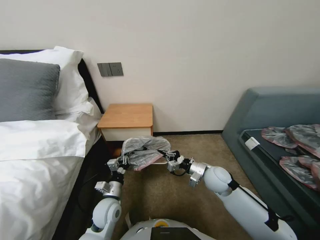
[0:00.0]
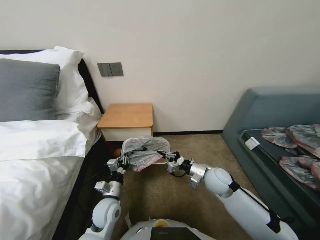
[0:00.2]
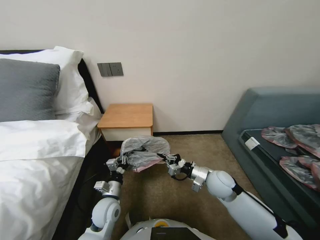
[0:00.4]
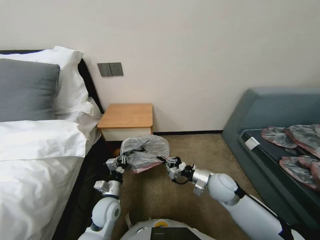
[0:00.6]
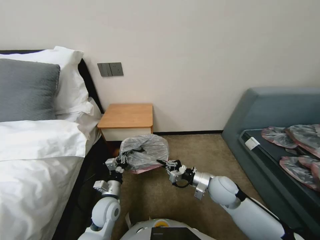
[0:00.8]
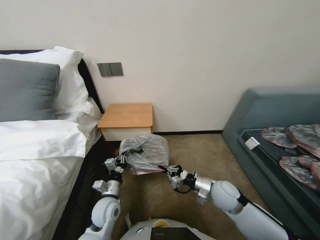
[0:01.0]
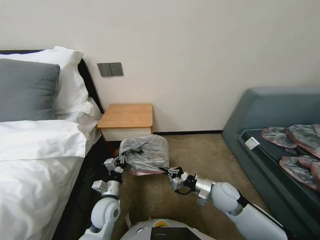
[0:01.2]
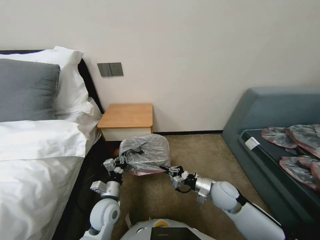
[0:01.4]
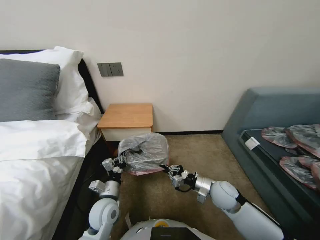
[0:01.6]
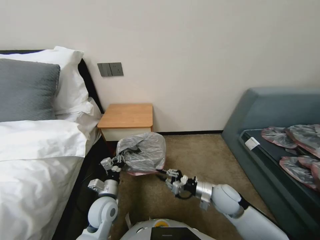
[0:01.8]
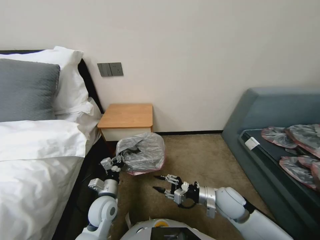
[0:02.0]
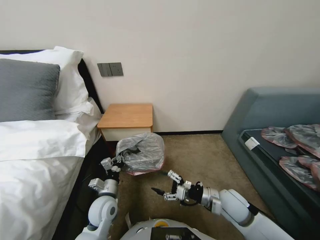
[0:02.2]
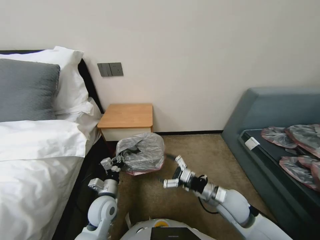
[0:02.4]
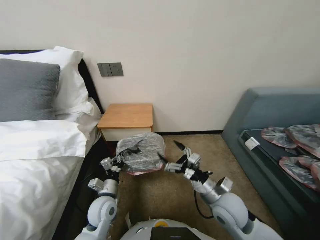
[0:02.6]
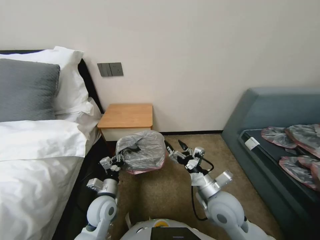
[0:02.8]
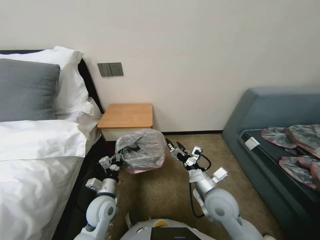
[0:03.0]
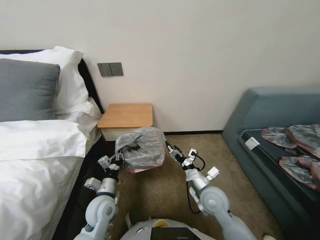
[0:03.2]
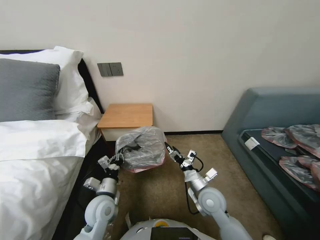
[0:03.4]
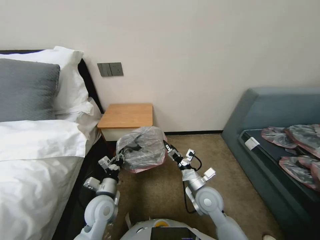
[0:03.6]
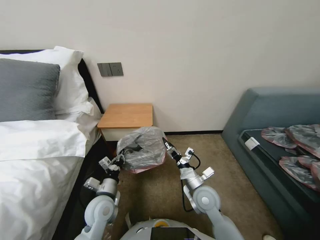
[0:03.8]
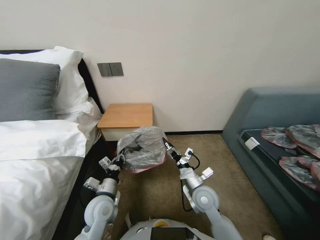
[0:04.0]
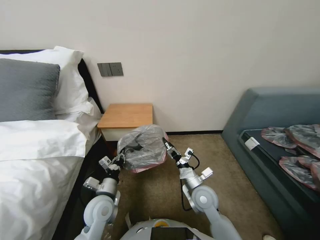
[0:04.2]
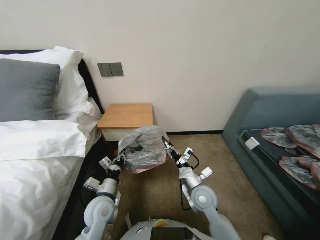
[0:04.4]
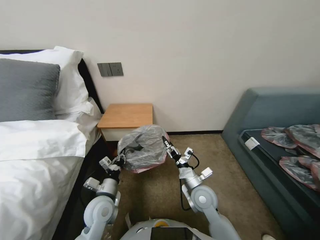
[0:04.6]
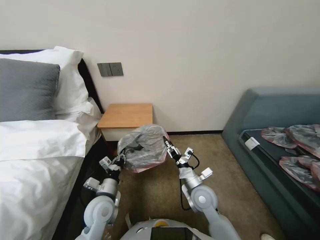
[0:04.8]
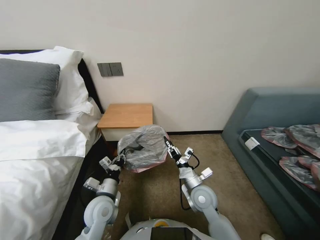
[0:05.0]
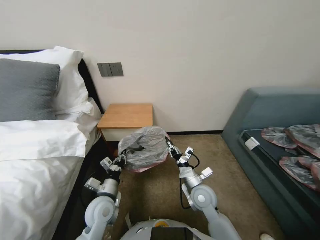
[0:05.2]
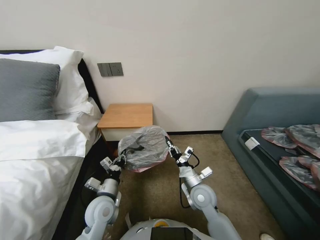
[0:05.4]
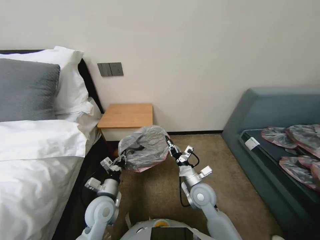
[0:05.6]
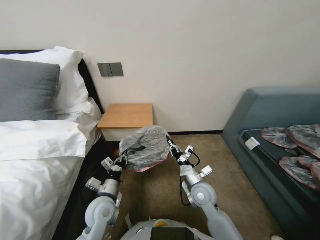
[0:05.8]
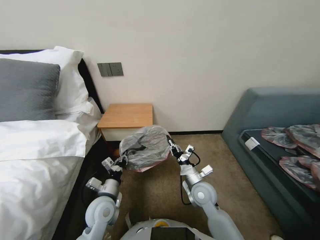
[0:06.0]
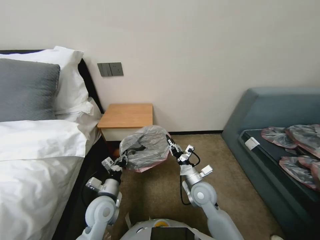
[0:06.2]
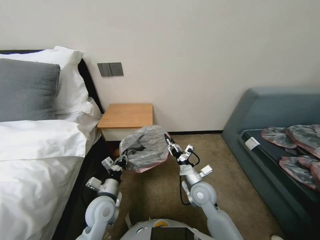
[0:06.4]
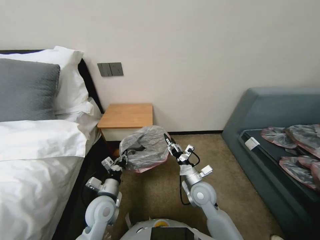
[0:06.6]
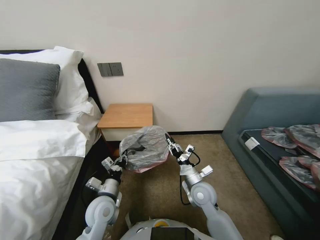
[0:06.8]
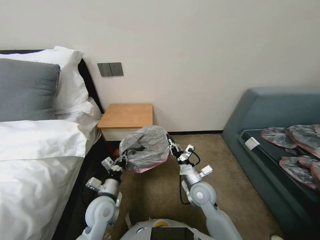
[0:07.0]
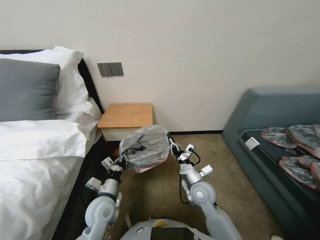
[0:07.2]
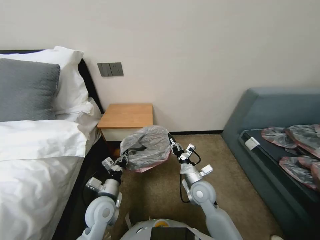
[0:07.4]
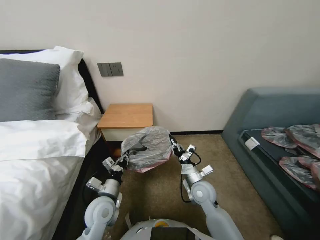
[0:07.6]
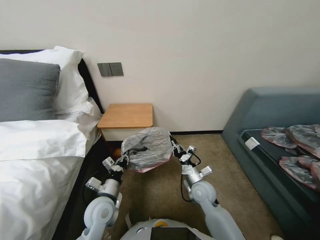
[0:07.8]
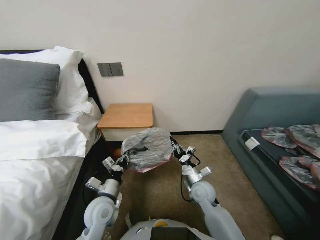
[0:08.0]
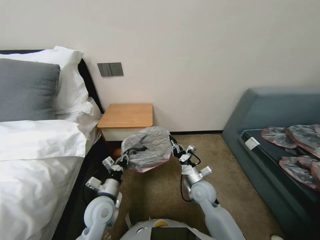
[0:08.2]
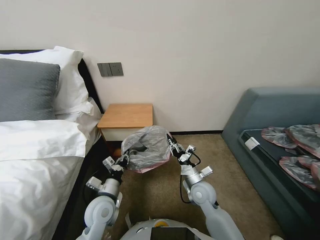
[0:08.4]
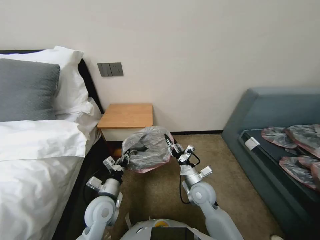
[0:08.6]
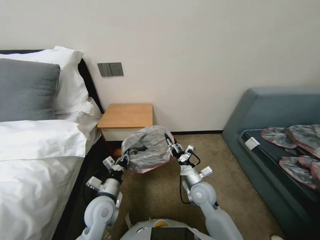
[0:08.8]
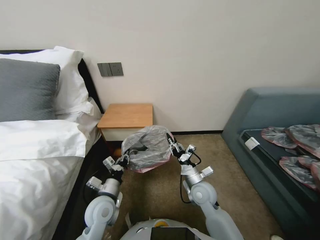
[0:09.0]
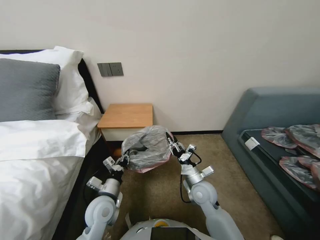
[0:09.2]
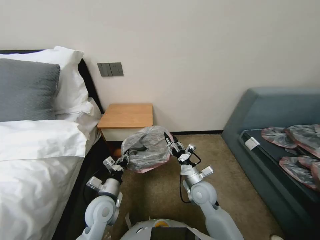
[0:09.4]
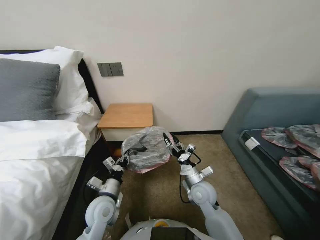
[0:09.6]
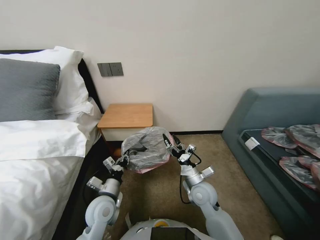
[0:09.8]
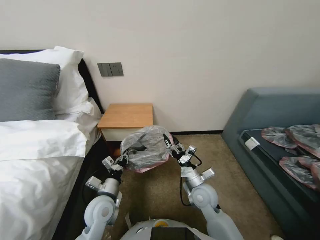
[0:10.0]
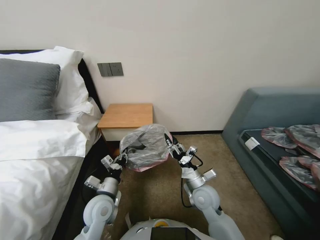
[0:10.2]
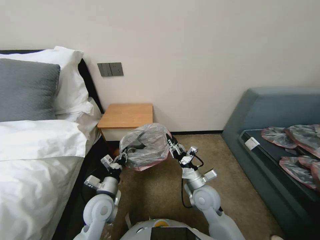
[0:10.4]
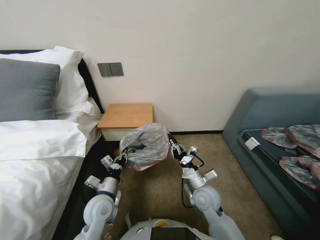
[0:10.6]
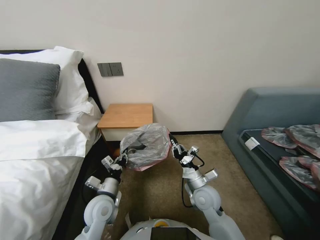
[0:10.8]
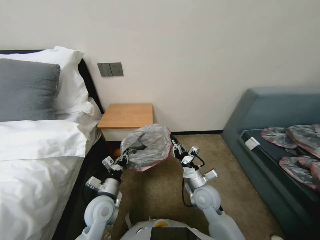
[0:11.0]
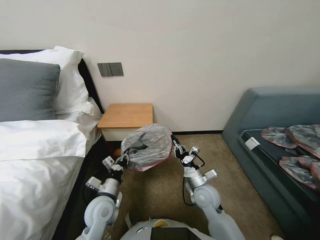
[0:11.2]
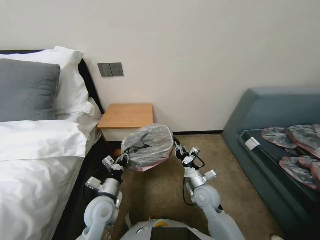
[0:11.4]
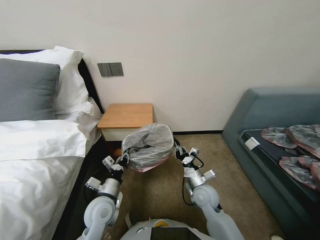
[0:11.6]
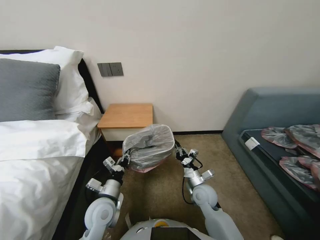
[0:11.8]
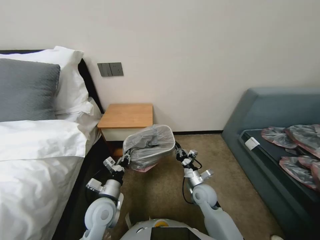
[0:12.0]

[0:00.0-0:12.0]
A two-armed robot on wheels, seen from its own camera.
Task of the whole recording: Pick up the garbage bag from the table and place it over the trash can.
0:00.0 to 0:01.6: The right gripper ends up some 5 cm from where it was.
0:01.6 to 0:03.0: The right gripper is displaced upward, to the left and backward by some 10 cm, and opens.
0:03.0 to 0:04.4: The right gripper moves downward, some 5 cm.
0:04.4 to 0:06.0: The right gripper closes up.
0:06.0 to 0:07.6: The right gripper opens, then closes again.
0:07.6 to 0:09.0: The right gripper opens.
0:09.0 to 0:10.4: The right gripper opens, then closes again.
0:10.4 to 0:12.0: The right gripper is displaced downward by roughly 5 cm, and closes its fingers.

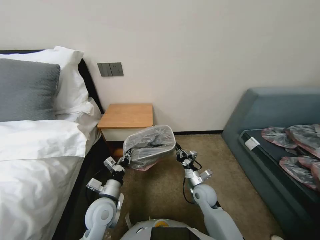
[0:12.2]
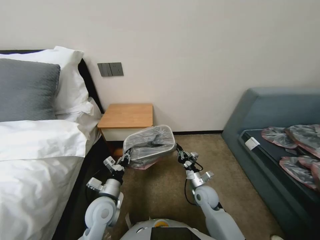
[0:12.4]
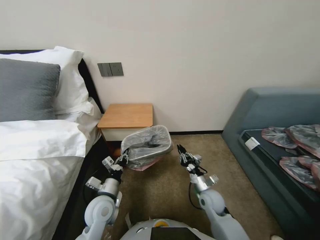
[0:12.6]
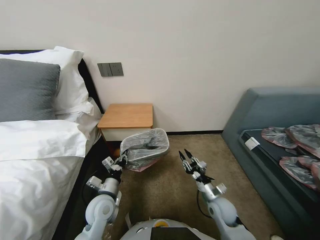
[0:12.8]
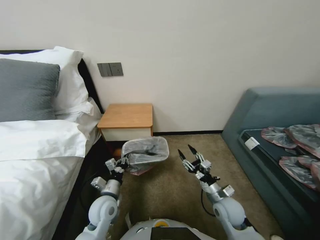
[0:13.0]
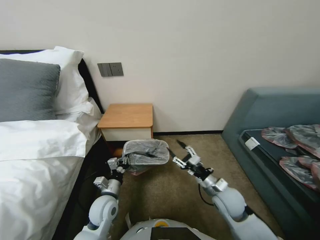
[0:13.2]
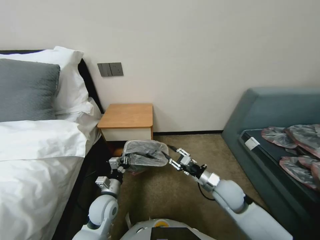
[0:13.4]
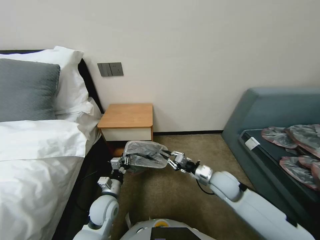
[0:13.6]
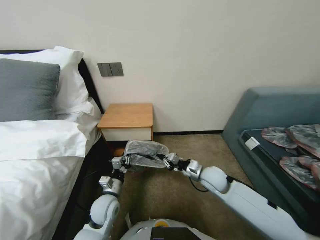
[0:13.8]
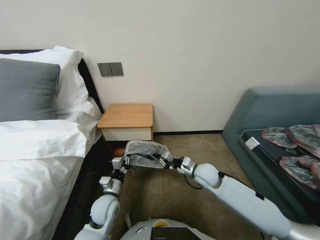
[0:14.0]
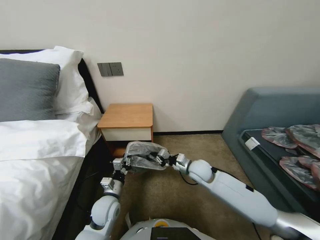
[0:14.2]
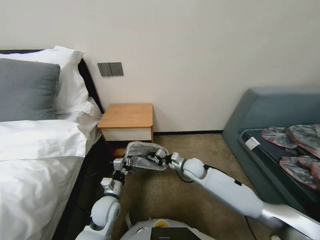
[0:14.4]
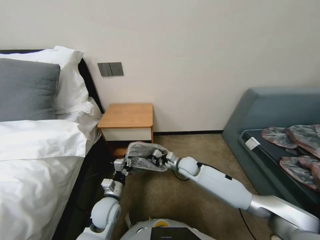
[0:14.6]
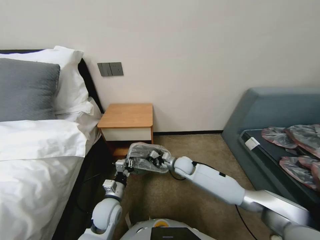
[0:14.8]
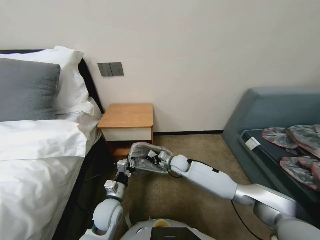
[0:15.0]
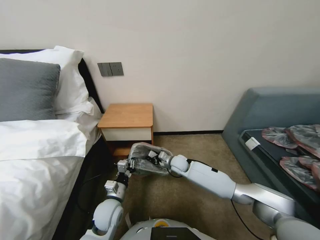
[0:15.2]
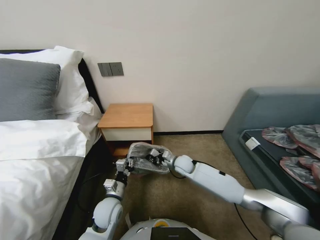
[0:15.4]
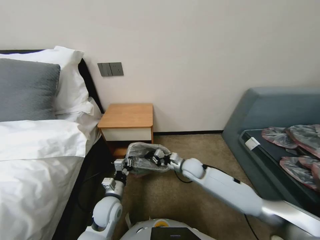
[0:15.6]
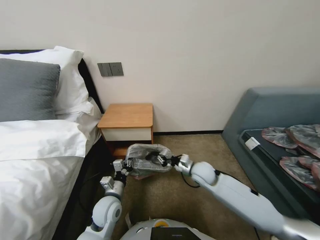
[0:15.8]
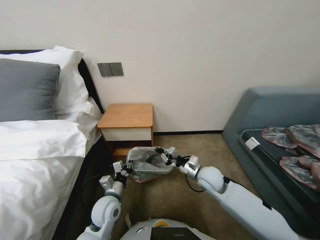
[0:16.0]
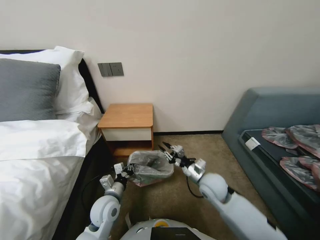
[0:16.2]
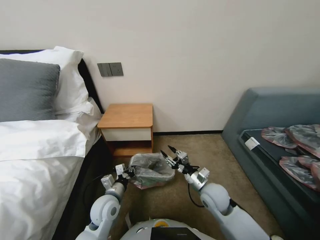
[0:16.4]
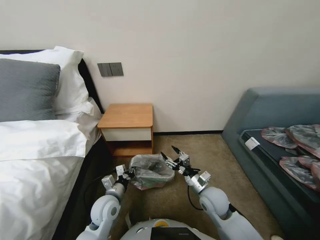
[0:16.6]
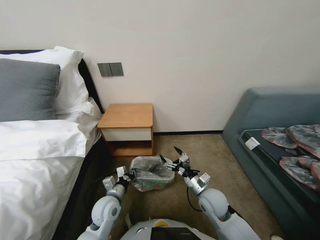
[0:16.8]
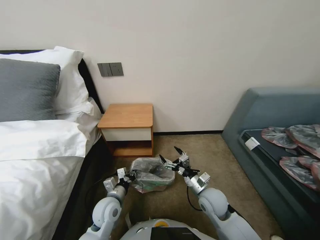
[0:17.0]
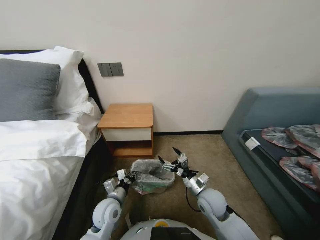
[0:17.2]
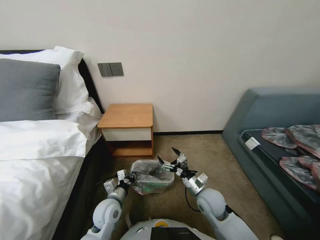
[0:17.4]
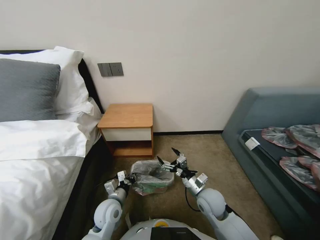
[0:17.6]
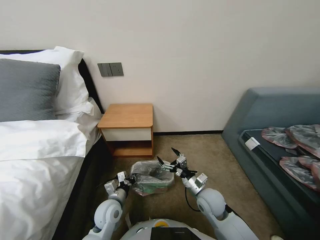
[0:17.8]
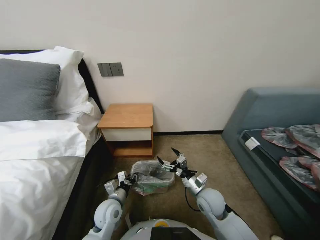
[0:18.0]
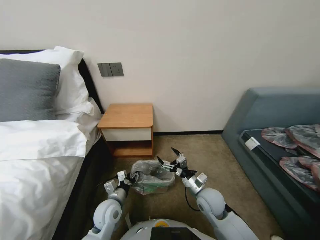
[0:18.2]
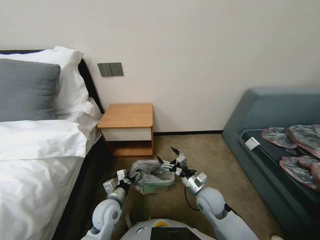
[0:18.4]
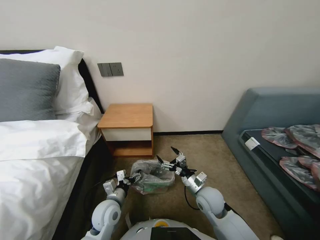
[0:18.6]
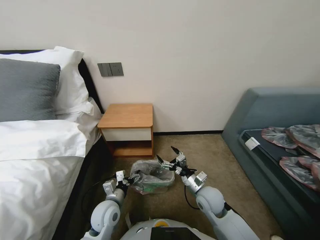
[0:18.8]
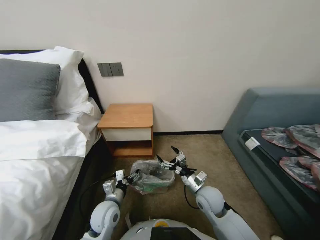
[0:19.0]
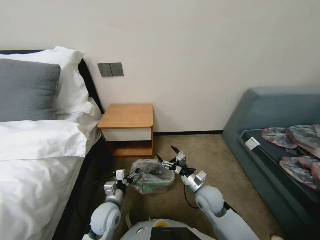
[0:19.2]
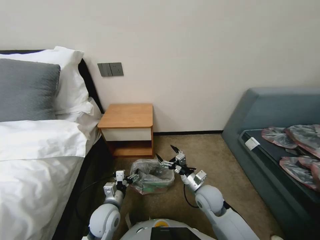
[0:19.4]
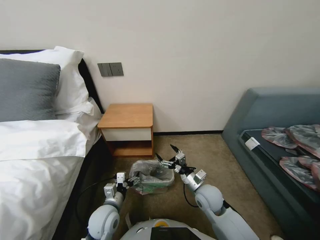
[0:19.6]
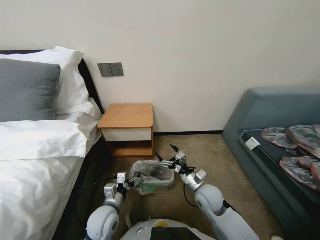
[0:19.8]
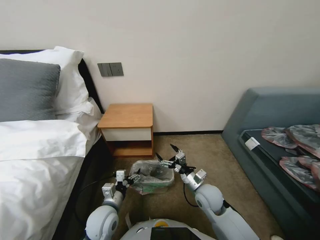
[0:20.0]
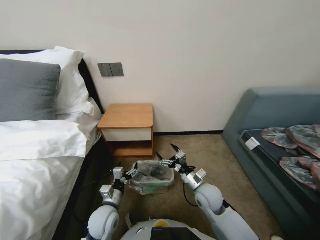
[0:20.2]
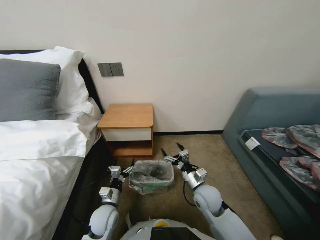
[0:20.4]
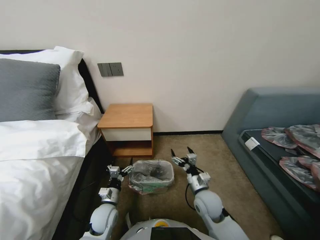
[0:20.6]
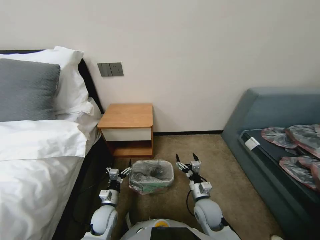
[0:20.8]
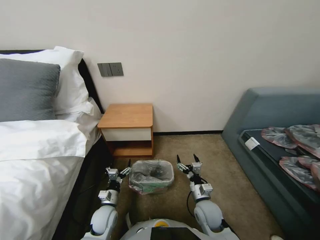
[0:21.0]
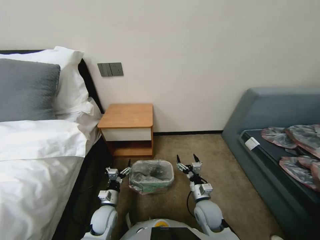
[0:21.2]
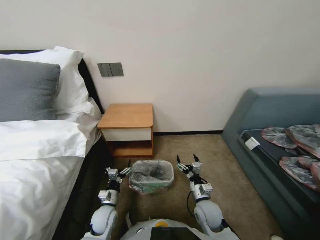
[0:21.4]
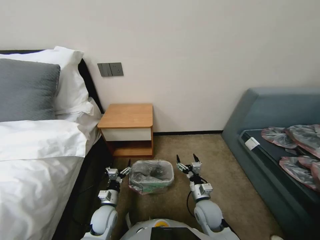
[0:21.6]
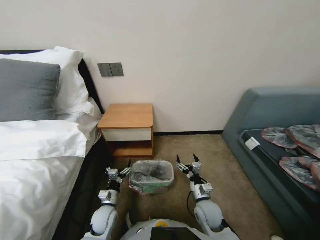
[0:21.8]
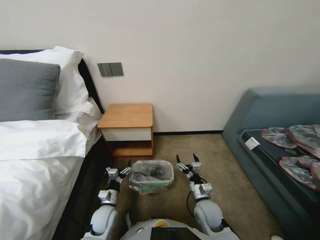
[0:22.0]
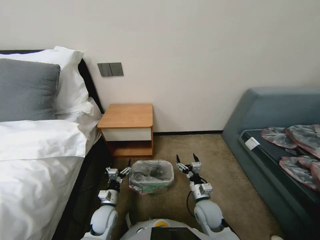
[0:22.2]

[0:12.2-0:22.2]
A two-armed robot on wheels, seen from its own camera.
Task of the whole recording: Pick up the garbage bag from the table and place it over the trash can.
0:12.2 to 0:13.6: The right gripper travels upward by some 10 cm, and opens, then closes once more.
0:13.6 to 0:15.0: The right gripper goes some 20 cm forward, to the left and downward.
0:15.0 to 0:16.4: The right gripper is displaced backward and to the right by approximately 15 cm, and opens up.
0:16.4 to 0:18.0: The right gripper opens up.
0:18.0 to 0:19.4: The left gripper opens its fingers.
0:19.4 to 0:20.8: The left gripper travels downward by roughly 5 cm.
